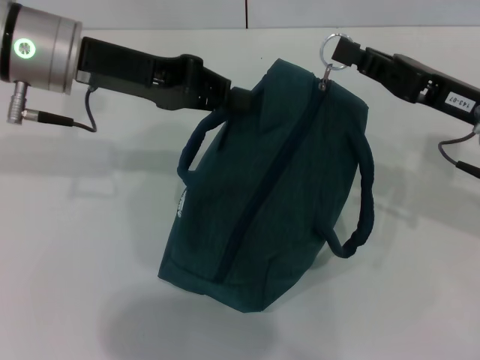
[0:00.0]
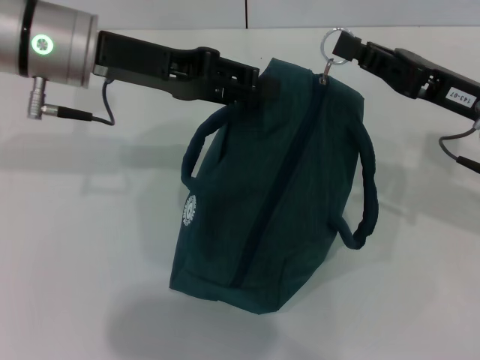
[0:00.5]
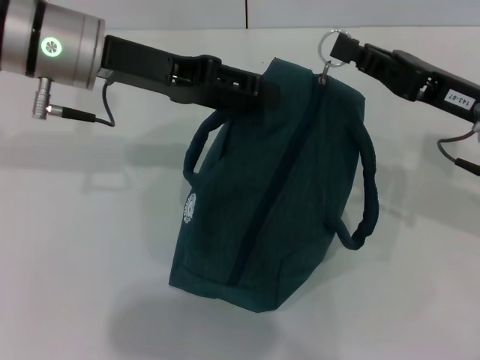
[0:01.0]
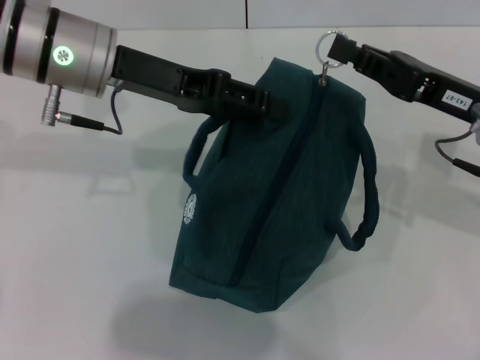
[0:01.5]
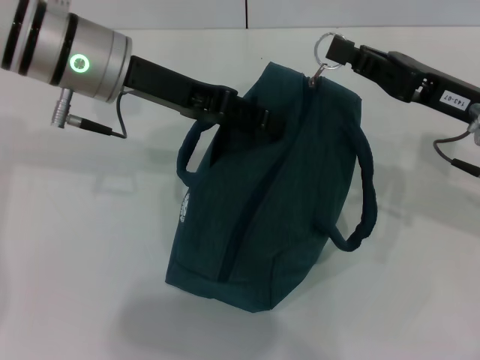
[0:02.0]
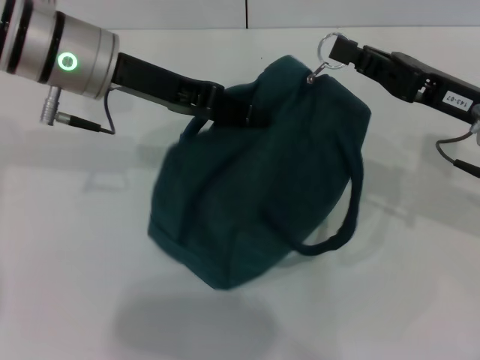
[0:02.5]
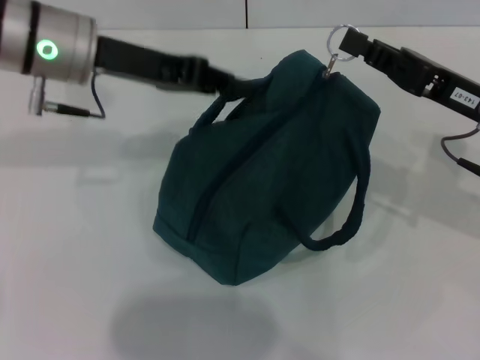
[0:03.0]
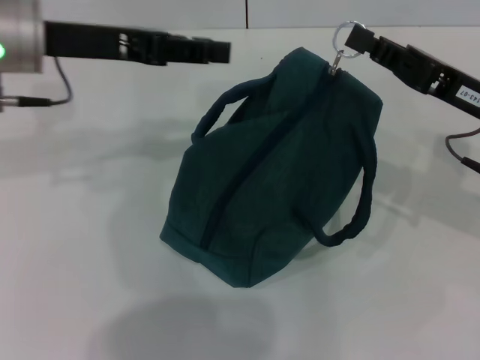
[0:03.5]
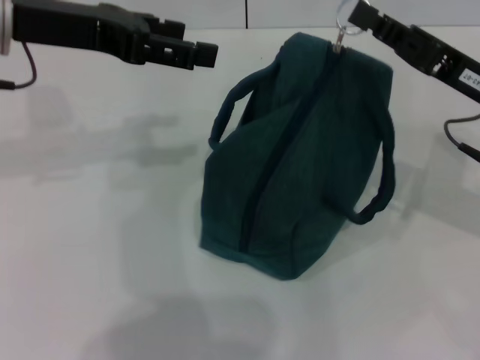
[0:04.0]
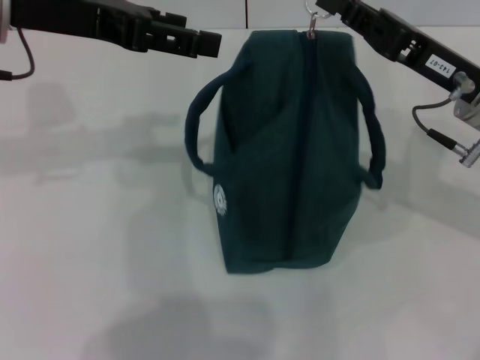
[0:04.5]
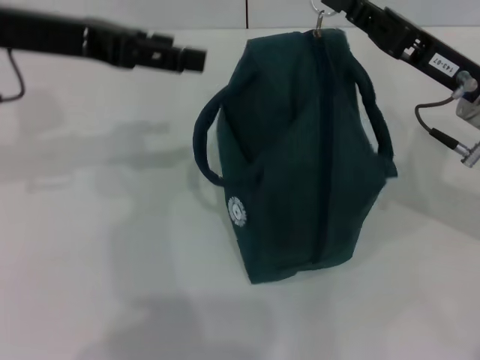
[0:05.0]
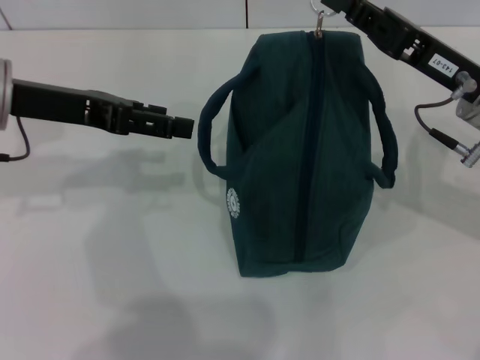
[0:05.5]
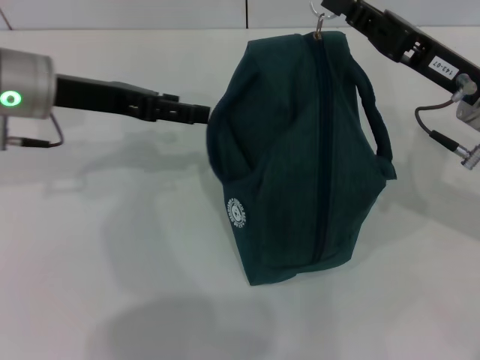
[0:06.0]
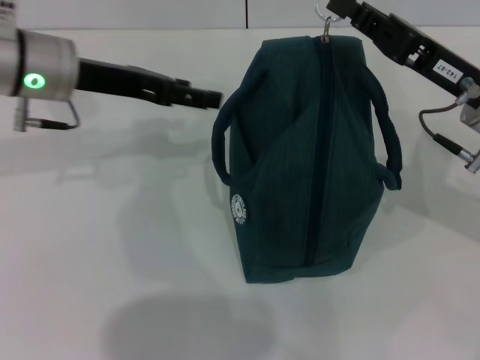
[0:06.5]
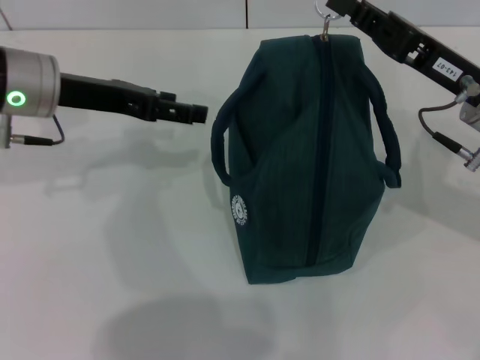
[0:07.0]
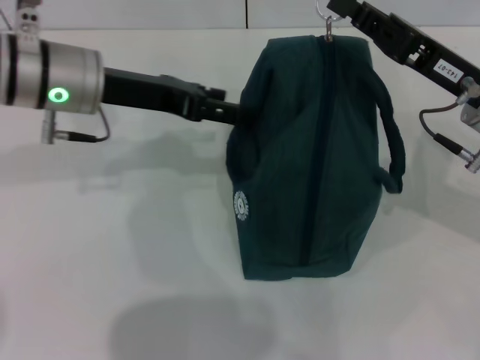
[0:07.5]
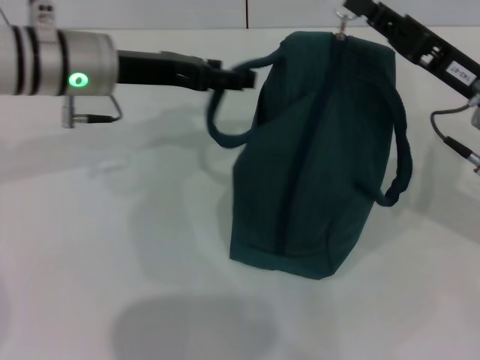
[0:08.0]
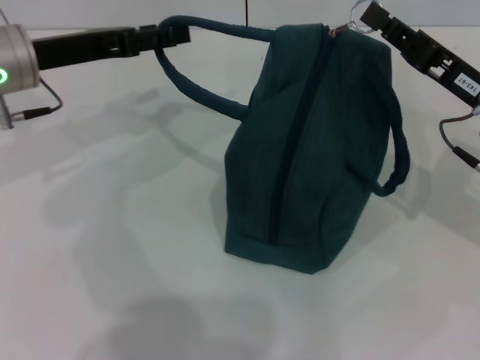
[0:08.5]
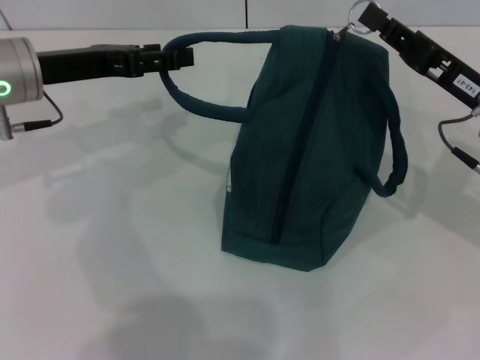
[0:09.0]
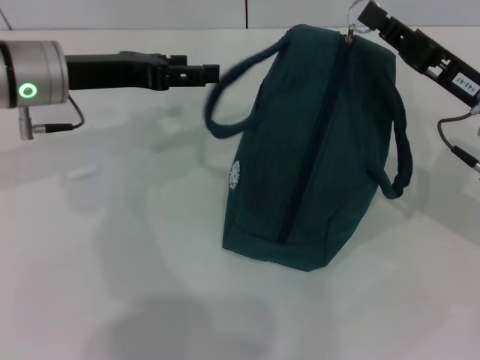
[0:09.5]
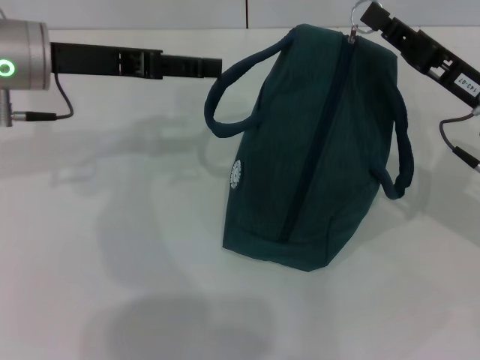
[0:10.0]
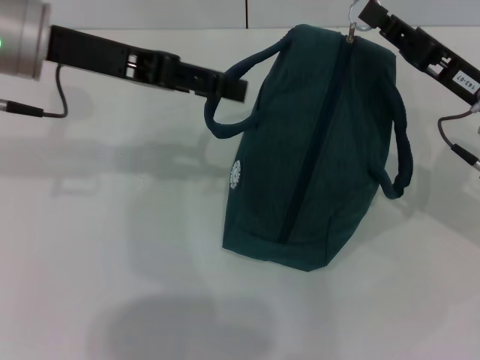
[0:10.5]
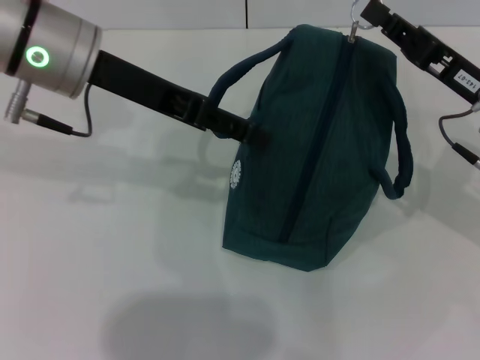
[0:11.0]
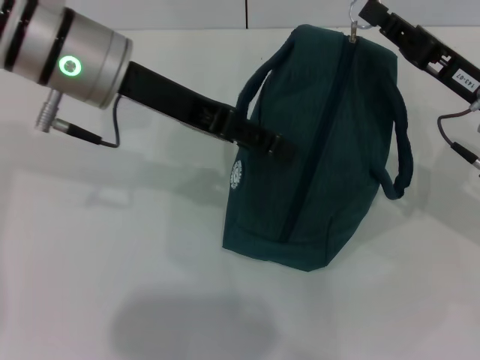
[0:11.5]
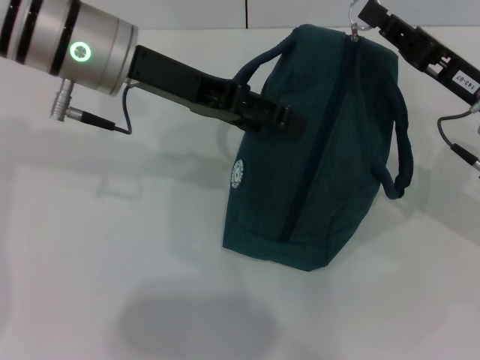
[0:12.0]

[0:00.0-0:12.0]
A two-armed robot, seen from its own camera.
0:00.0 to 0:02.0: The left gripper opens up.
0:02.0 to 0:04.0: The left gripper shifts some 10 cm to the left and upward, and closes, then reopens.
0:04.0 to 0:06.0: The left gripper is displaced downward by about 10 cm.
0:06.0 to 0:08.0: The left gripper ends up some 5 cm from where it was.
0:08.0 to 0:10.0: The left gripper moves roughly 5 cm.
0:10.0 to 0:12.0: The left gripper moves to the right, about 10 cm.

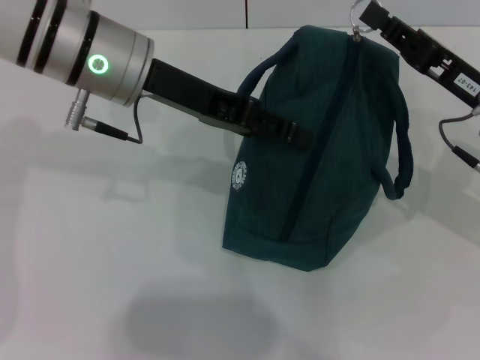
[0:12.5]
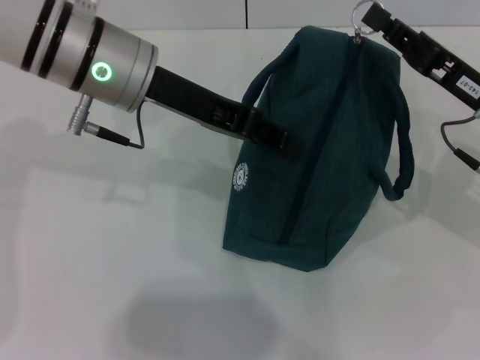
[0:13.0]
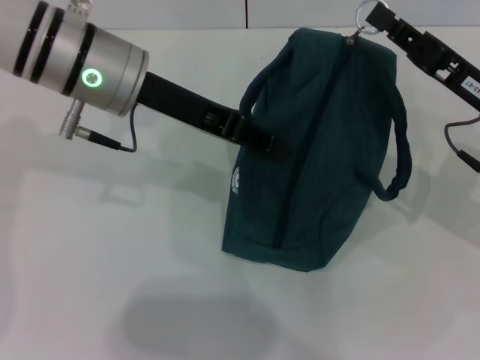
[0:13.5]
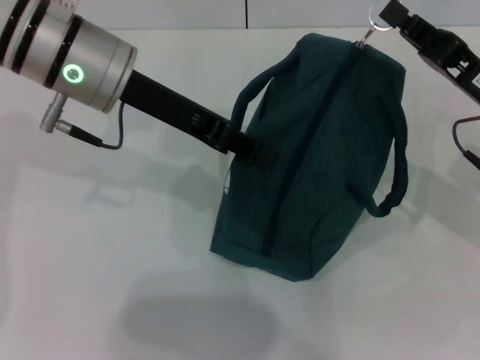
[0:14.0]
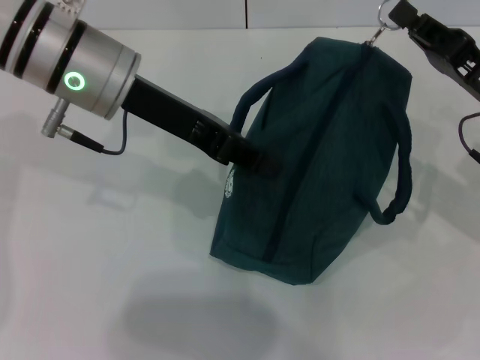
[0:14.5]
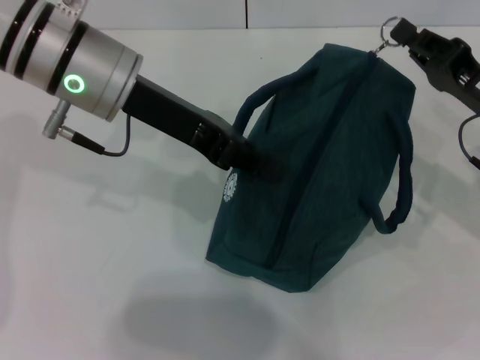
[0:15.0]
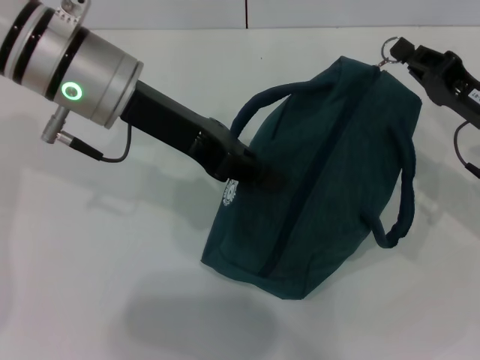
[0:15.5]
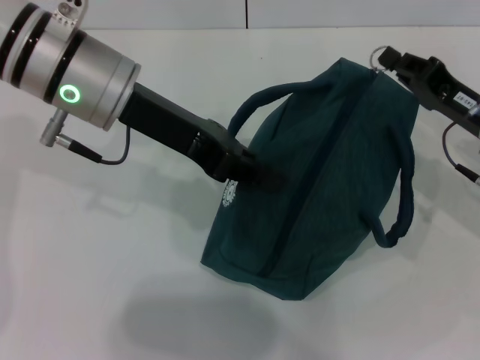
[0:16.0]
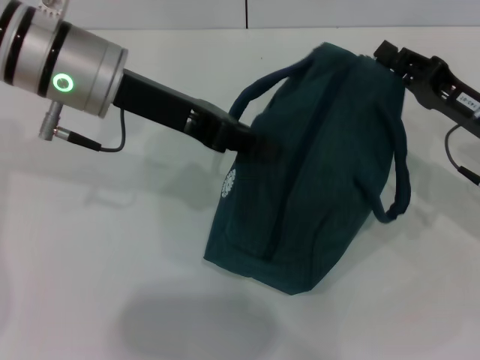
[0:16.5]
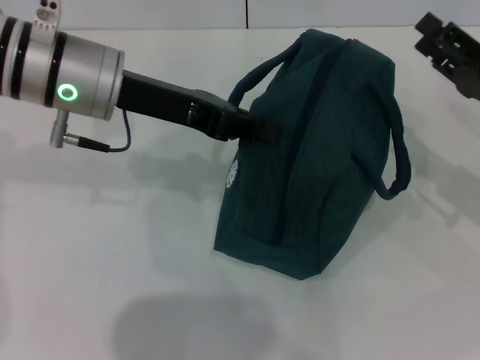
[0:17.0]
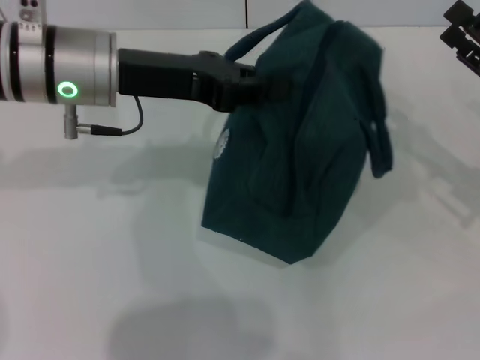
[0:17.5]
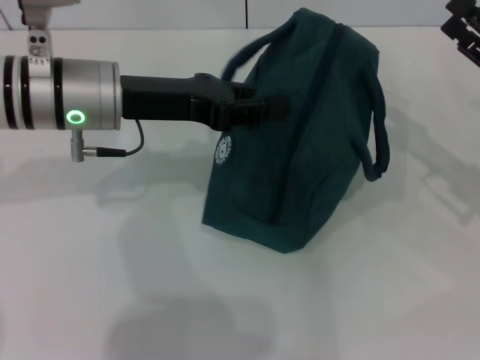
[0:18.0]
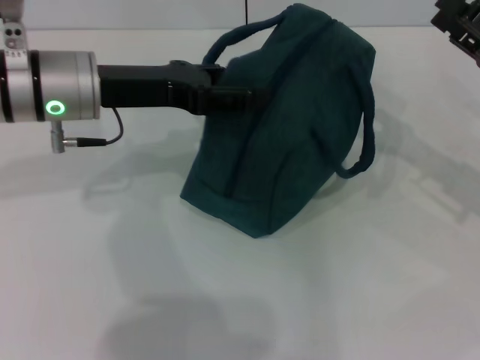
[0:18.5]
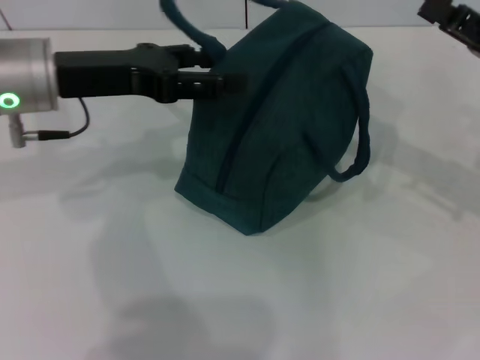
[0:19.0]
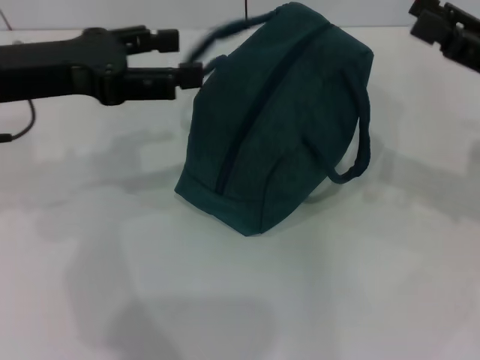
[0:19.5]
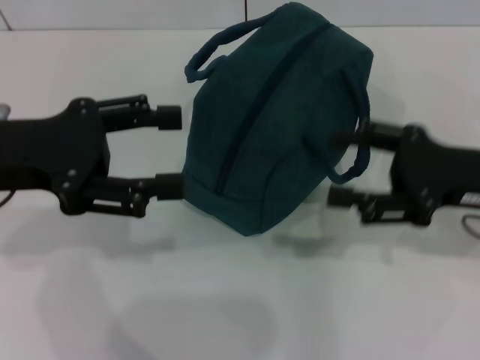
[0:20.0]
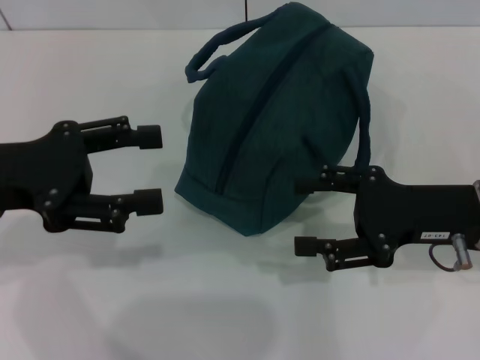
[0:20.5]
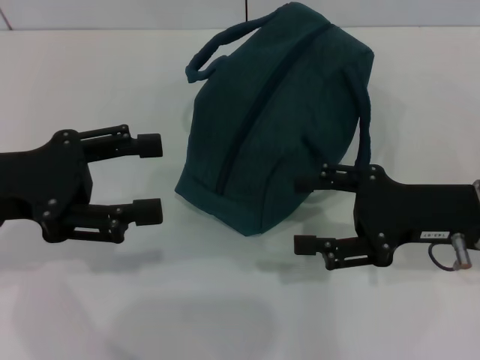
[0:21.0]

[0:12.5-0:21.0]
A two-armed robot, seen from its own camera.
Step, 0:12.5 to 0:16.0: Zip up the lunch bag with your right hand.
Step, 0:16.5 to 0:19.0: Hold the lunch bag with your left hand.
0:12.5 to 0:14.5: The left gripper closes up.
0:14.5 to 0:16.5: The grippers move only a little.
0:16.5 to 0:19.0: The right gripper heads upward, covering roughly 5 cm, and opens up, while the left gripper heads to the left, covering roughly 5 cm, and opens up.
0:19.0 to 0:21.0: The left gripper heads backward and to the left, covering about 10 cm. The right gripper shifts roughly 5 cm to the left.

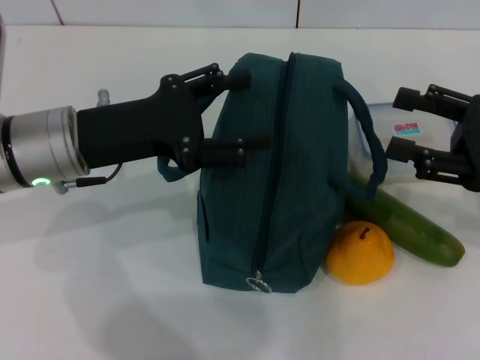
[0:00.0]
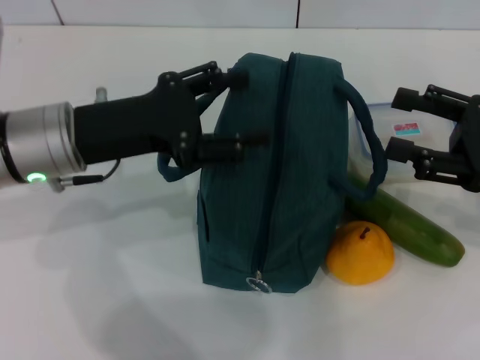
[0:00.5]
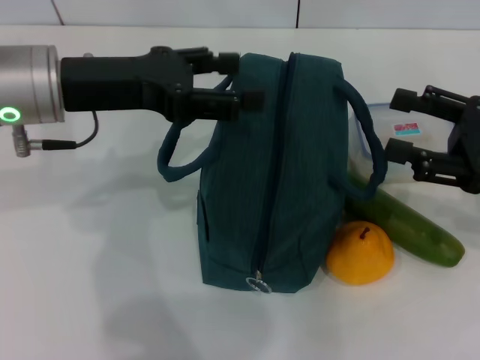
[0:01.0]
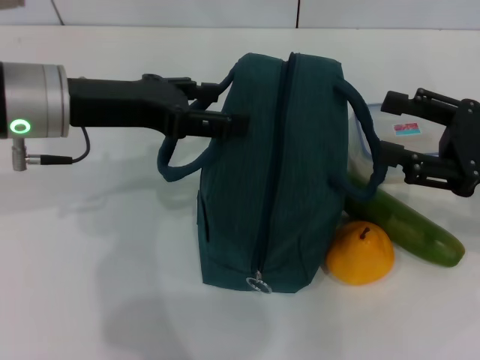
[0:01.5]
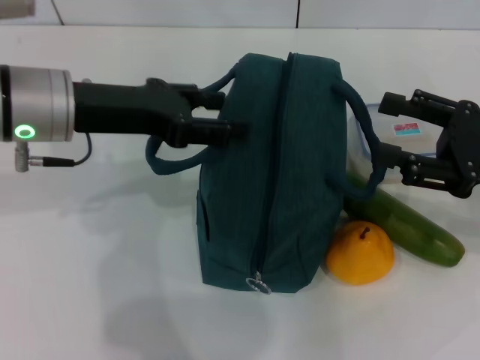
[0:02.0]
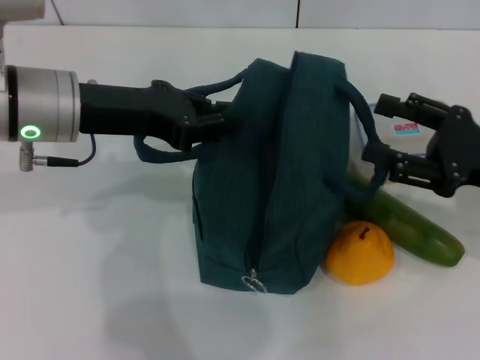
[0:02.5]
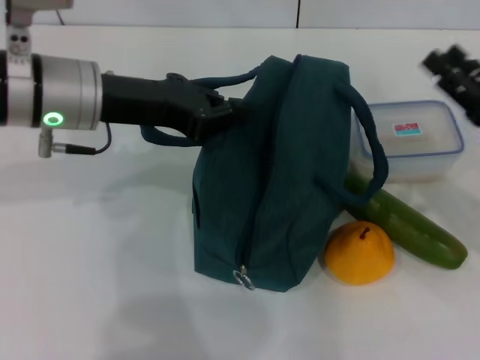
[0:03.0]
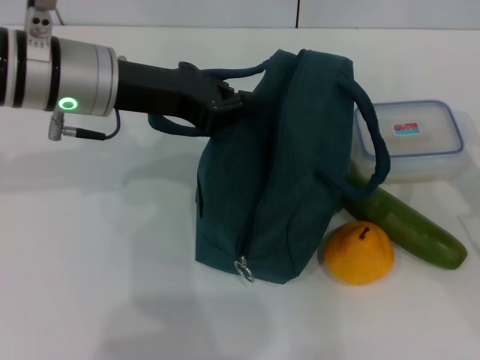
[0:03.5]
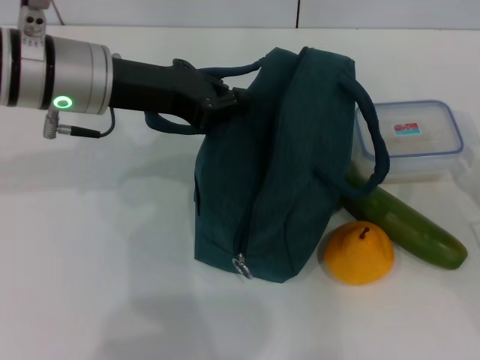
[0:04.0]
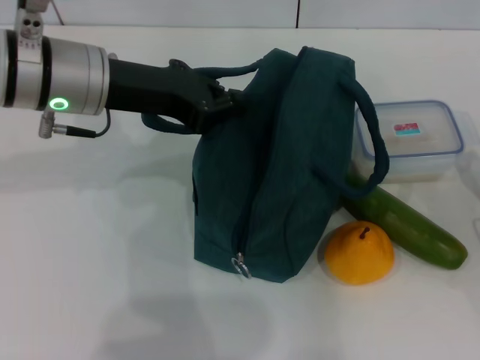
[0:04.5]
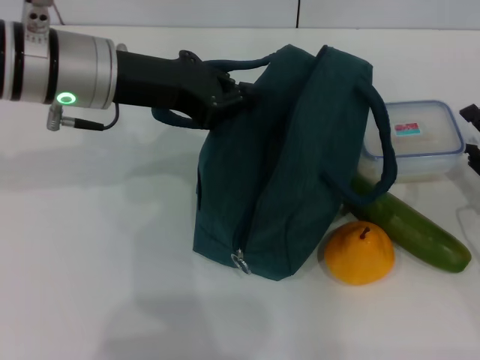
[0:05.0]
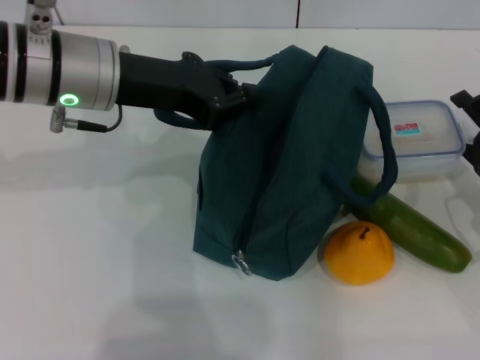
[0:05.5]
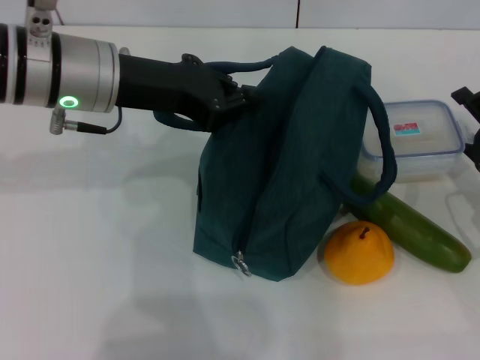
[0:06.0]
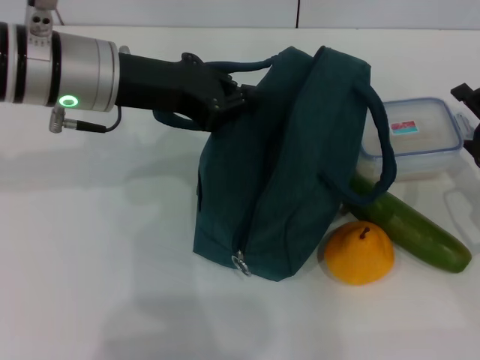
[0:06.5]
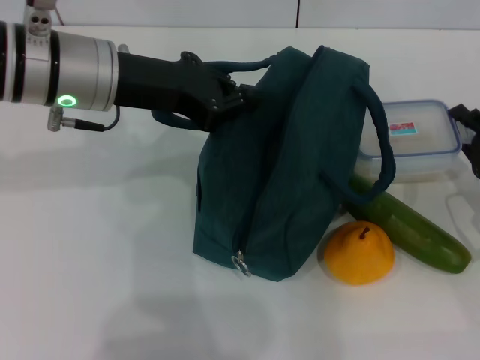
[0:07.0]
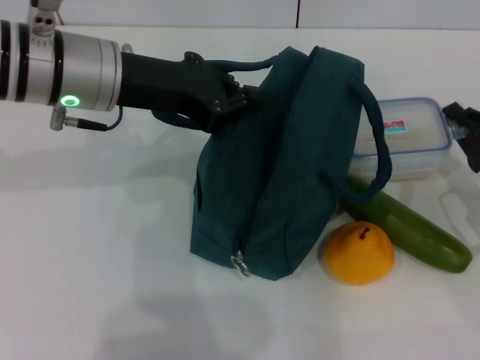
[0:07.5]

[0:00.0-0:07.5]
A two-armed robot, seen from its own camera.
Step, 0:00.0 to 0:03.5: Hold the lunch bag with your left hand.
Step, 0:04.0 to 0:07.5: Pick up the lunch box with your right hand.
0:02.0 to 0:04.0: The right gripper heads downward, covering about 10 cm; the left gripper closes its fingers.
0:04.0 to 0:05.5: The grippers make only small movements.
0:05.5 to 0:07.5: The right gripper closes up.
